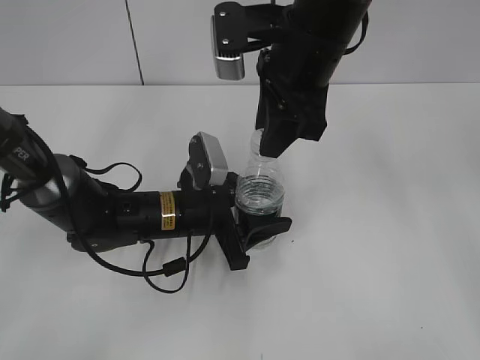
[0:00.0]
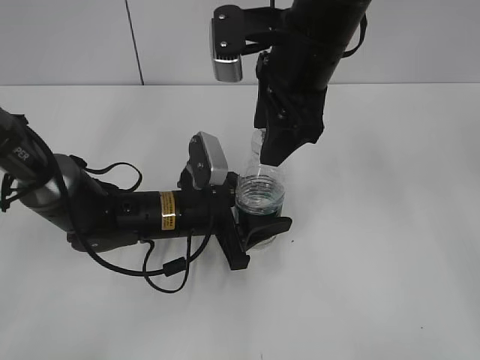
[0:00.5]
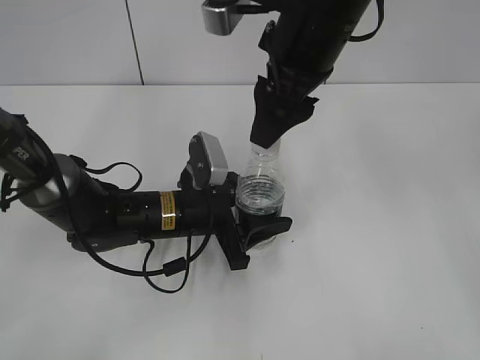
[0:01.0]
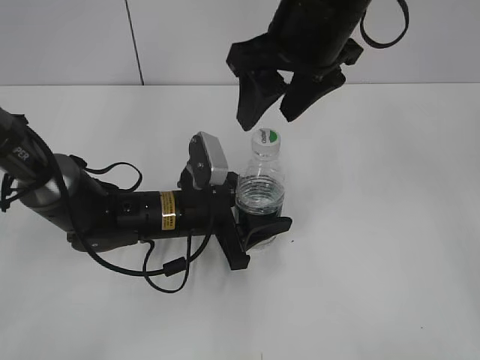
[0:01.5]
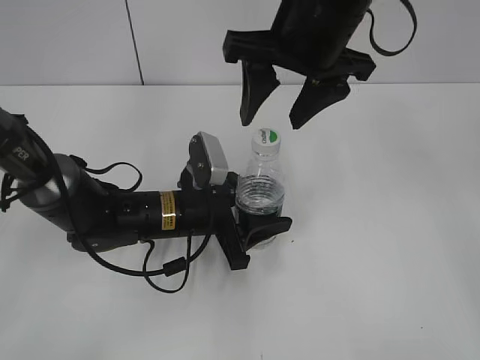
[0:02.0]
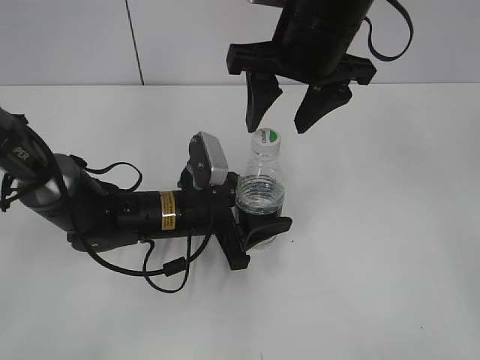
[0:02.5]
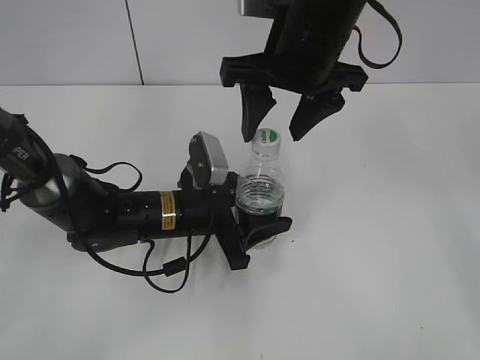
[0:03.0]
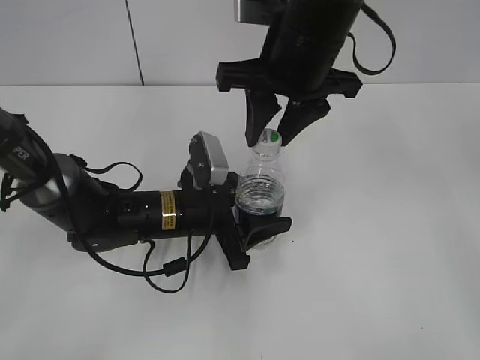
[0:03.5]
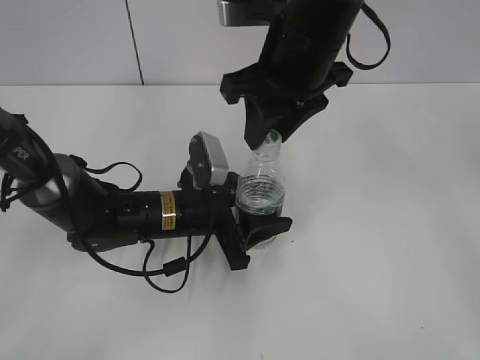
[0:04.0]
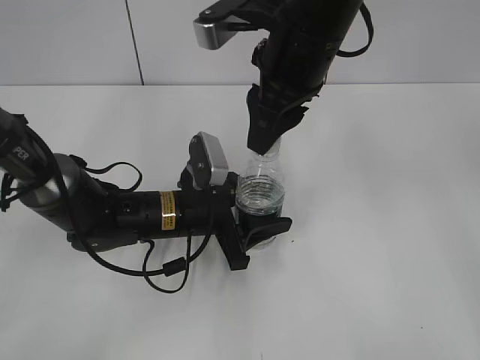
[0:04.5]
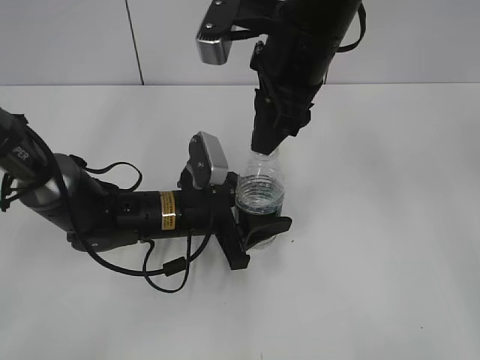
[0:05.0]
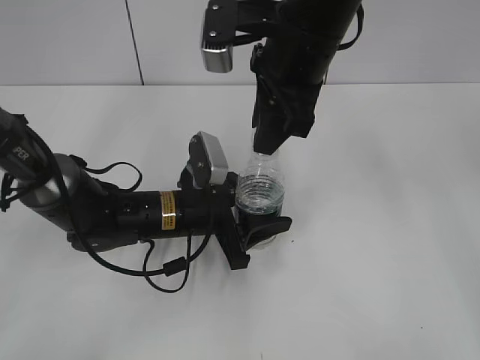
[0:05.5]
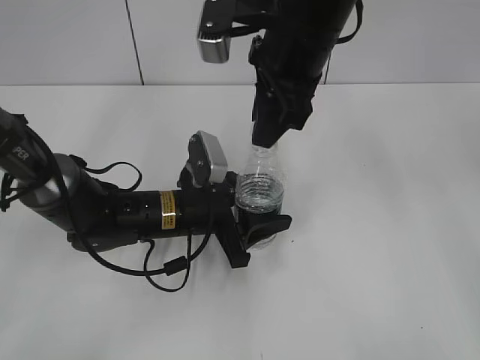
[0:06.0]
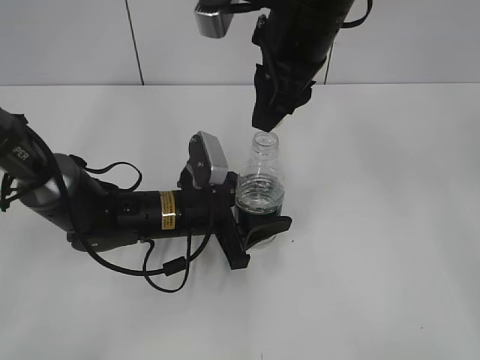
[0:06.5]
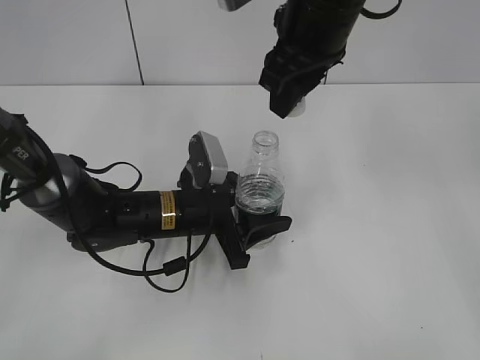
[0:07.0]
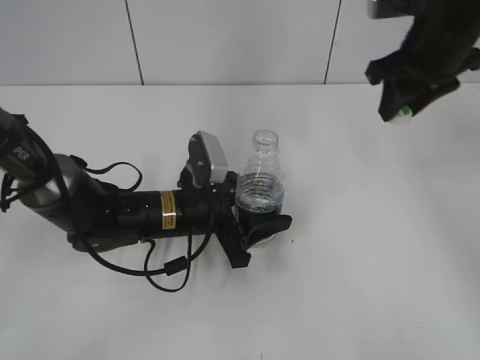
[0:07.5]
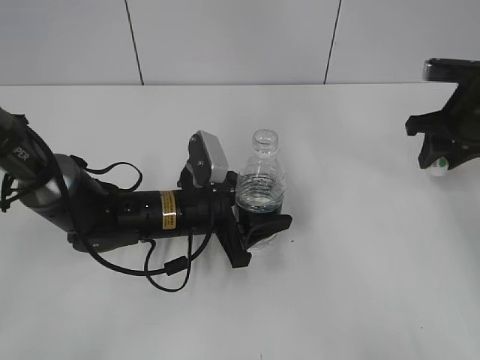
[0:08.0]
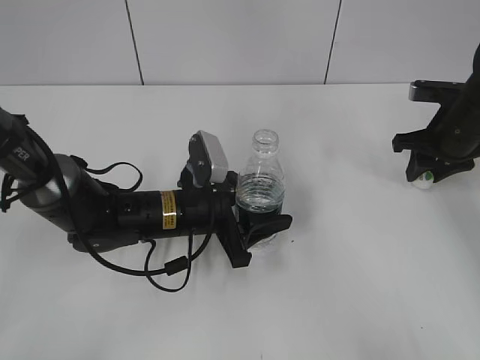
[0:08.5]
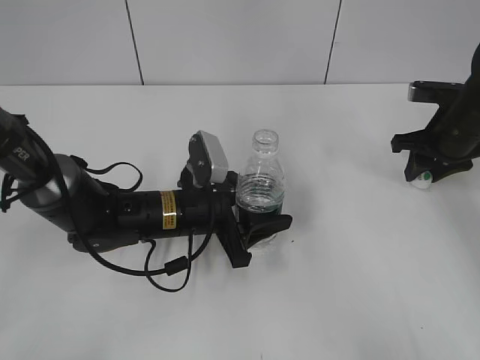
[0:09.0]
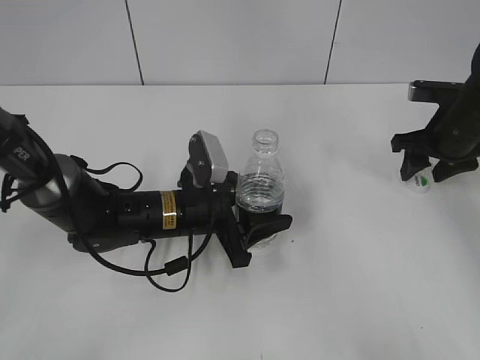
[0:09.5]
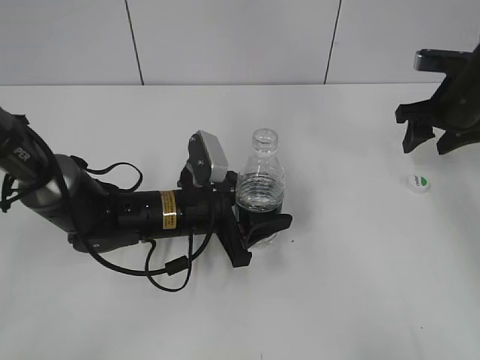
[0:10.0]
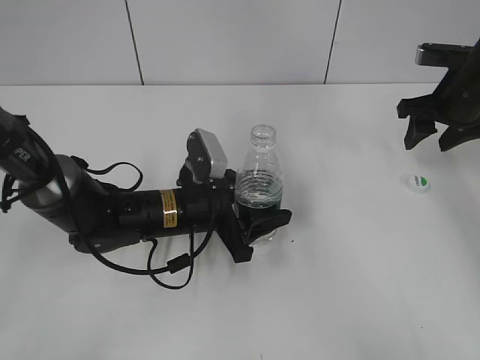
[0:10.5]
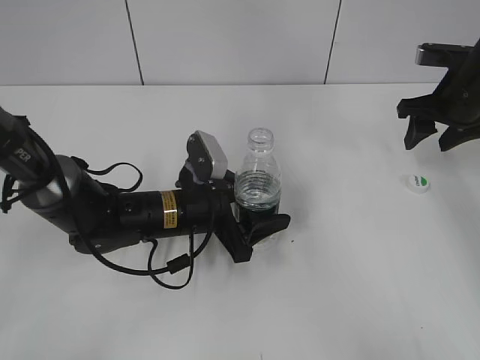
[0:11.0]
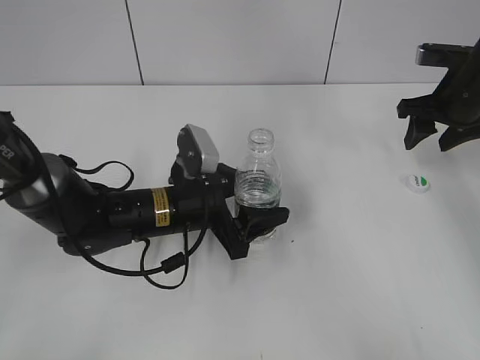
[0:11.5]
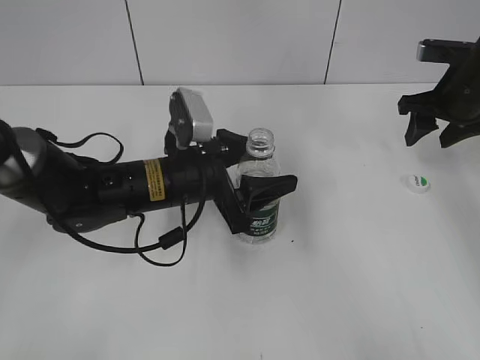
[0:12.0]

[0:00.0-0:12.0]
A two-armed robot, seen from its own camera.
Step, 0:00.0 to 0:06.0: Unscrew the bottle cap with the right gripper while holding the bottle with the left gripper.
Step, 0:06.5 to 0:09.5: Place the bottle cap on the table with the right gripper.
0:00.0 to 0:02.0: The right gripper opens its fingers.
0:02.0 to 0:04.0: The right gripper closes up.
0:06.0 to 0:08.0: The right gripper shifts some 25 cm to the right and downward.
0:08.0 to 0:10.0: The right gripper opens up.
0:10.0 to 0:12.0: The left gripper travels upward by about 5 cm.

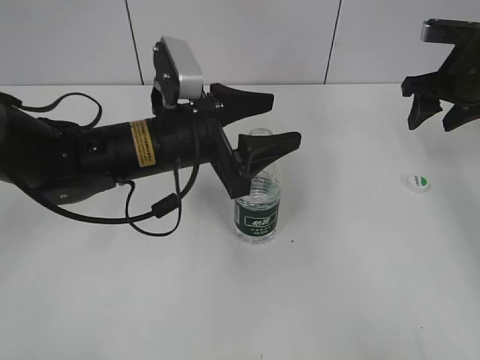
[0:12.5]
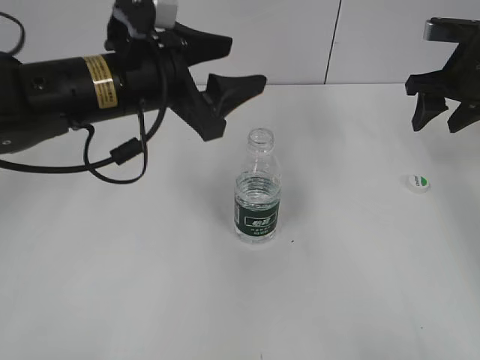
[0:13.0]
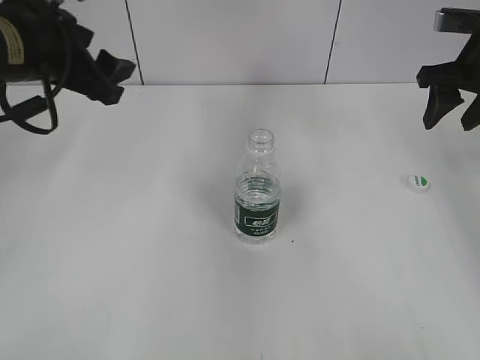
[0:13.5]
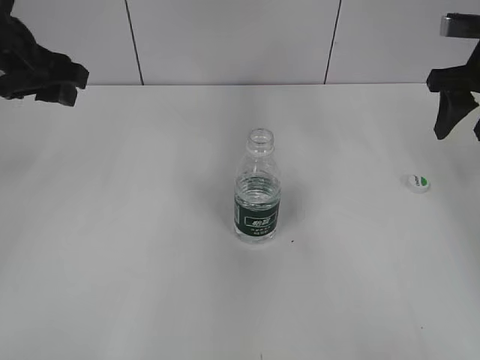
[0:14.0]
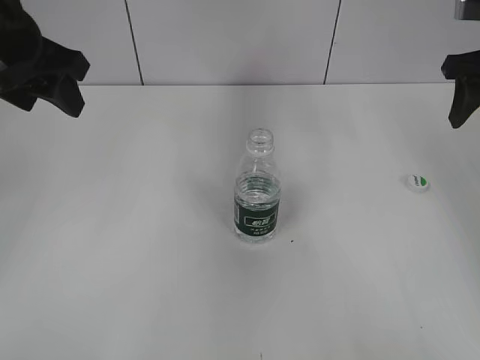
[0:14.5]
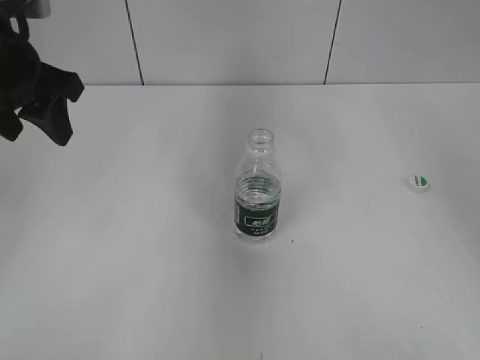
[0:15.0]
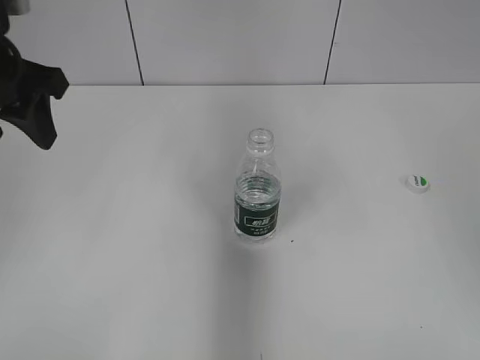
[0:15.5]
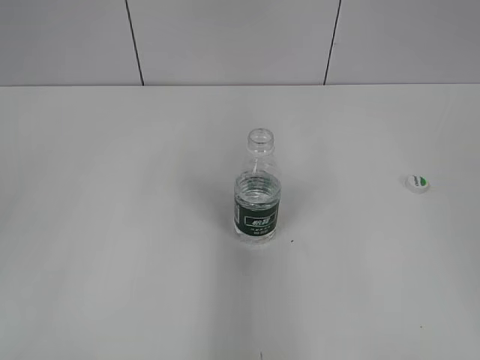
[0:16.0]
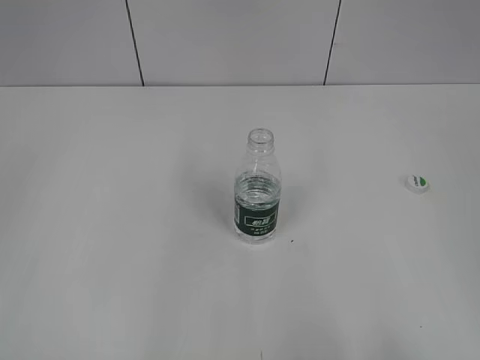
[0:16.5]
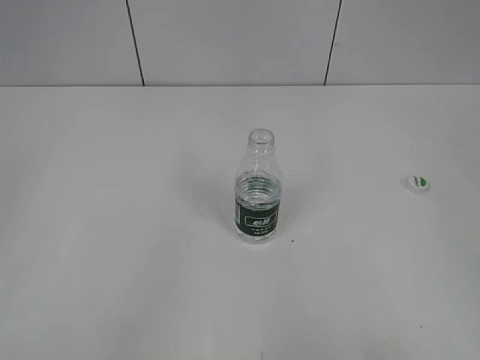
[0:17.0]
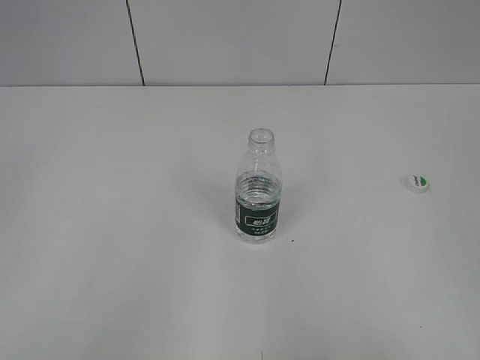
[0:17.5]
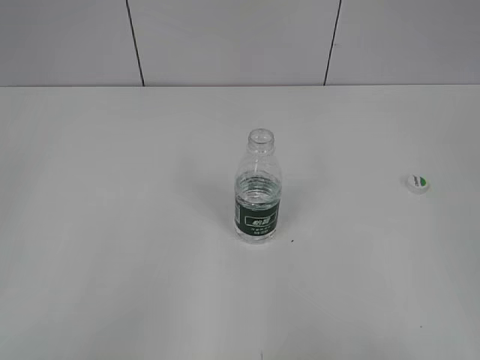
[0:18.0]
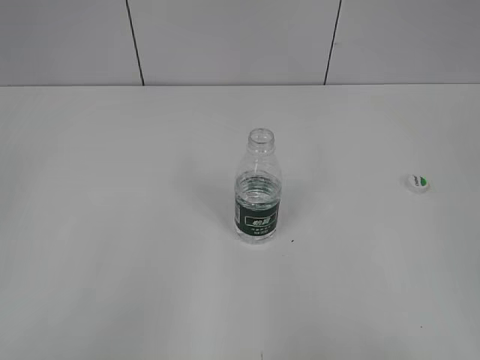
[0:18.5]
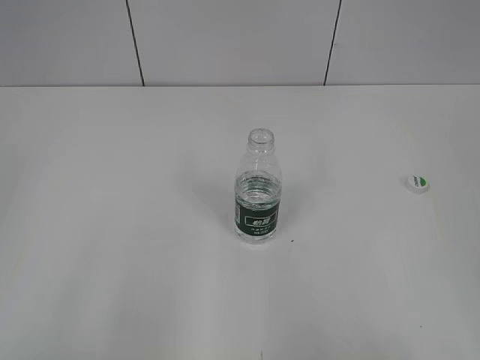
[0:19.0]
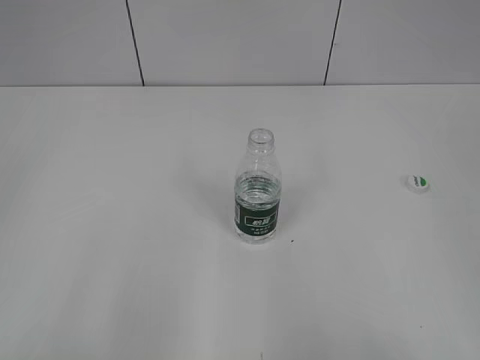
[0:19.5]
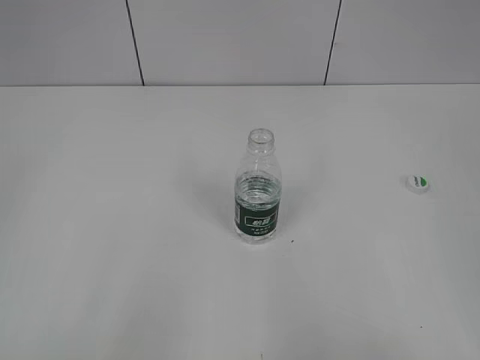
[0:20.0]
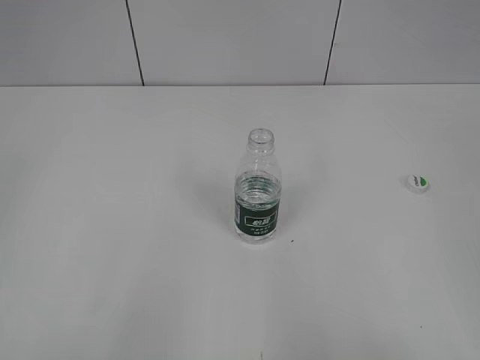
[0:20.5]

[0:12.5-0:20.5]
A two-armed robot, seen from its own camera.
0:12.5 to 0:14.5: The left gripper travels to the left and upward by roughly 20 cm. Meanwhile the right gripper moves upward, roughly 5 cm.
0:14.5 to 0:16.5: The right gripper heads backward, covering approximately 40 cm. The left gripper goes about 25 cm backward.
